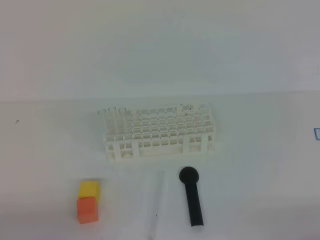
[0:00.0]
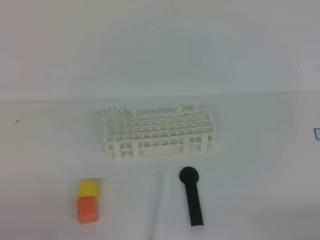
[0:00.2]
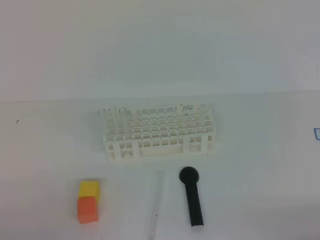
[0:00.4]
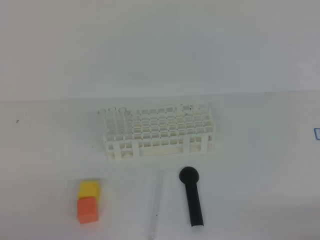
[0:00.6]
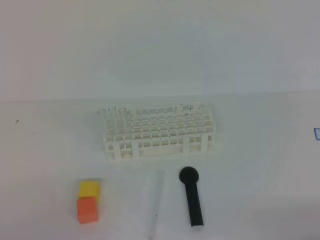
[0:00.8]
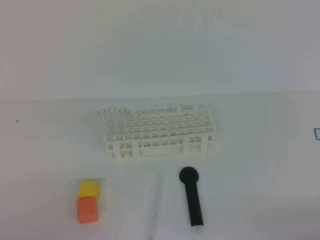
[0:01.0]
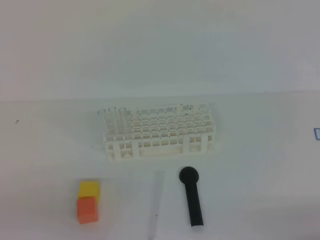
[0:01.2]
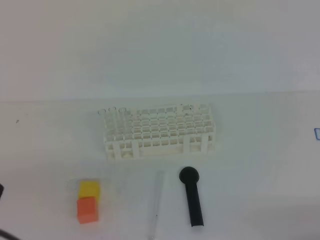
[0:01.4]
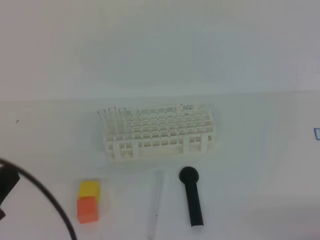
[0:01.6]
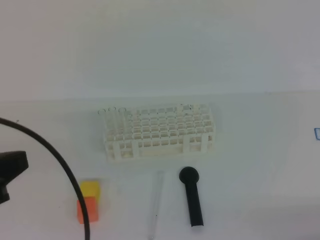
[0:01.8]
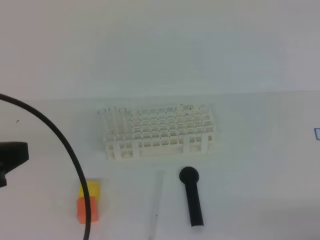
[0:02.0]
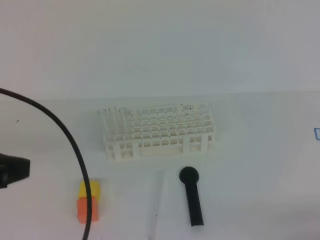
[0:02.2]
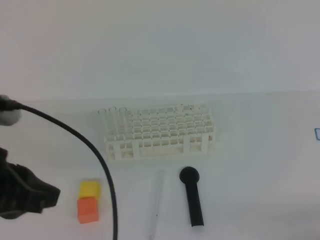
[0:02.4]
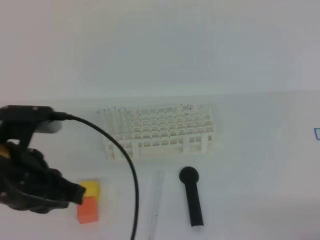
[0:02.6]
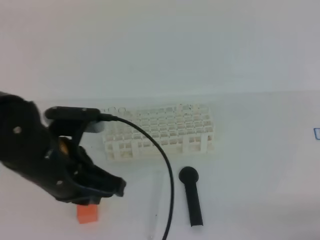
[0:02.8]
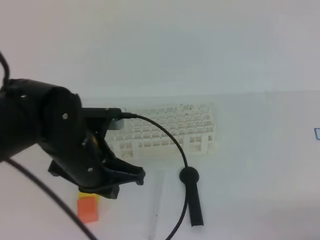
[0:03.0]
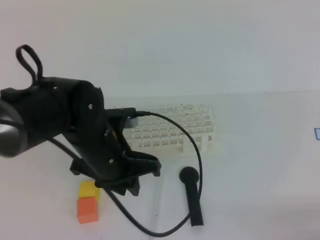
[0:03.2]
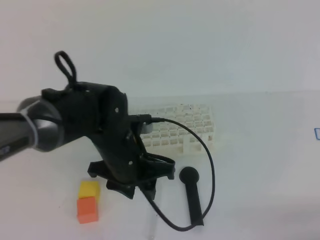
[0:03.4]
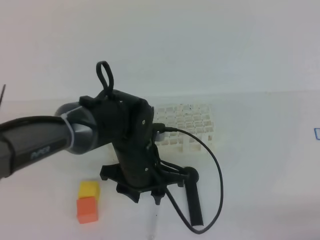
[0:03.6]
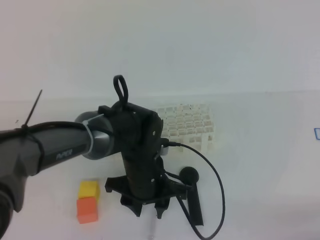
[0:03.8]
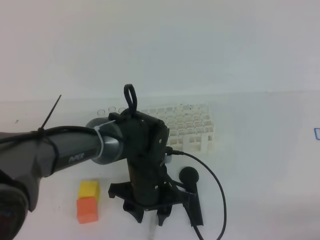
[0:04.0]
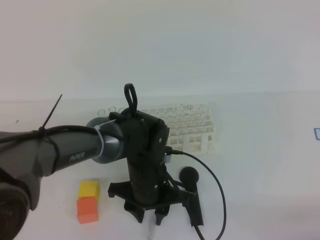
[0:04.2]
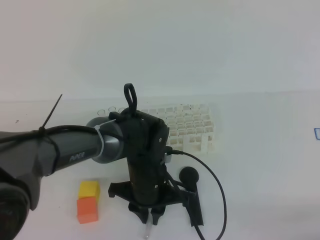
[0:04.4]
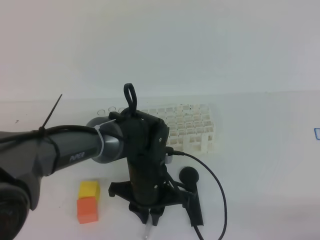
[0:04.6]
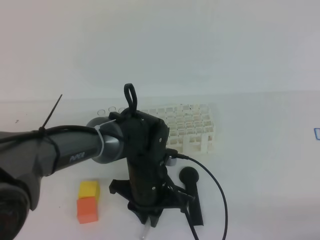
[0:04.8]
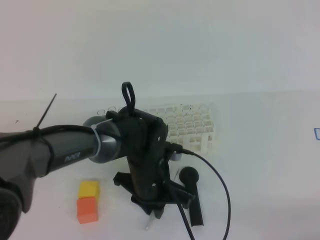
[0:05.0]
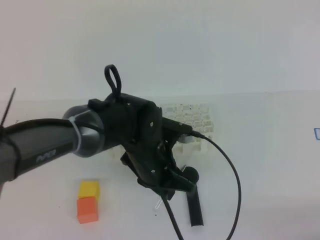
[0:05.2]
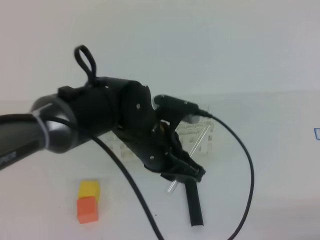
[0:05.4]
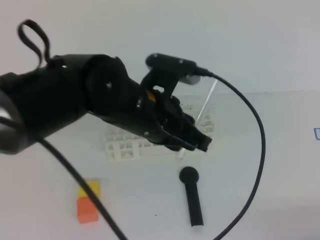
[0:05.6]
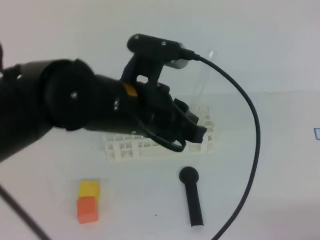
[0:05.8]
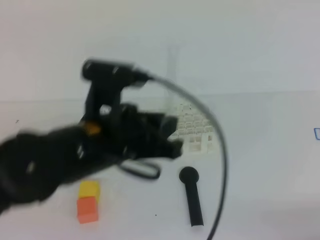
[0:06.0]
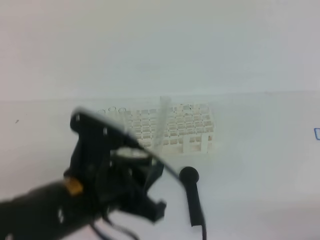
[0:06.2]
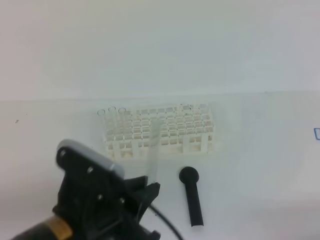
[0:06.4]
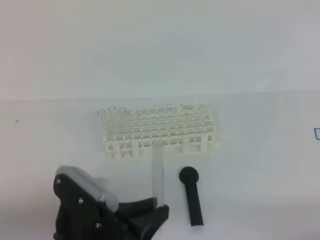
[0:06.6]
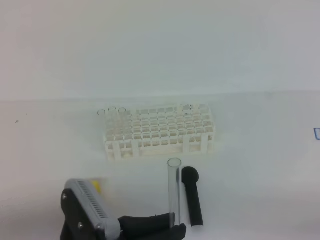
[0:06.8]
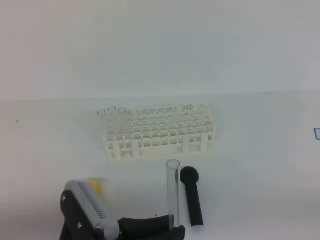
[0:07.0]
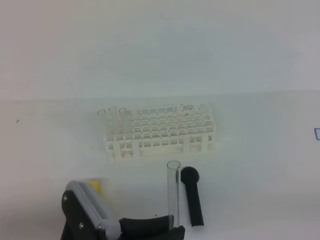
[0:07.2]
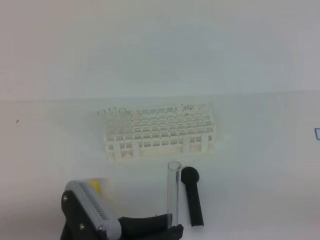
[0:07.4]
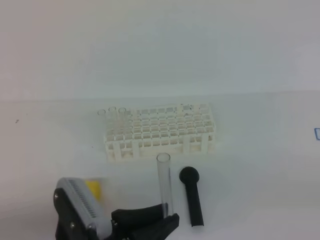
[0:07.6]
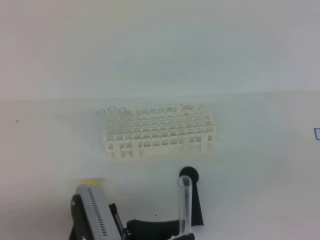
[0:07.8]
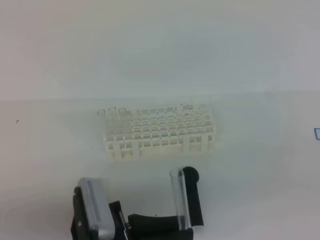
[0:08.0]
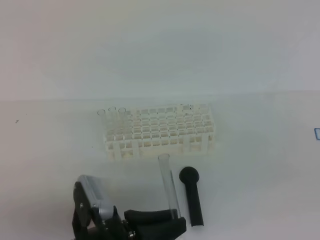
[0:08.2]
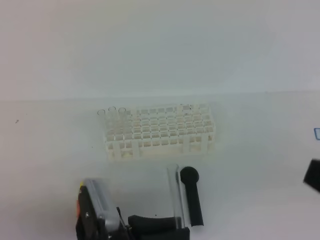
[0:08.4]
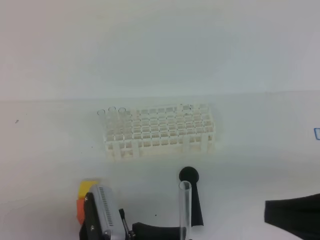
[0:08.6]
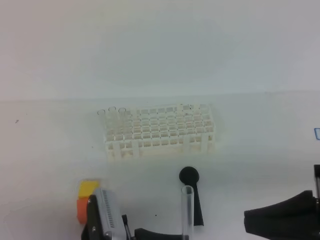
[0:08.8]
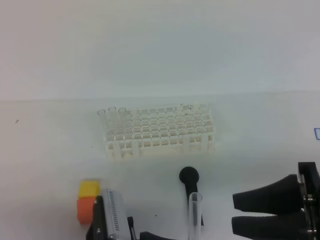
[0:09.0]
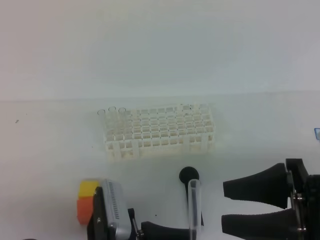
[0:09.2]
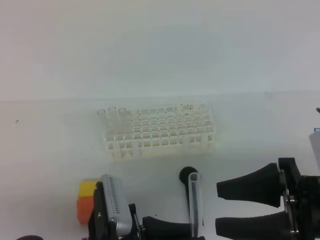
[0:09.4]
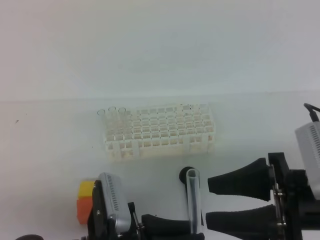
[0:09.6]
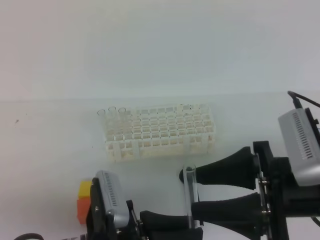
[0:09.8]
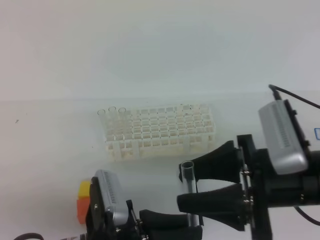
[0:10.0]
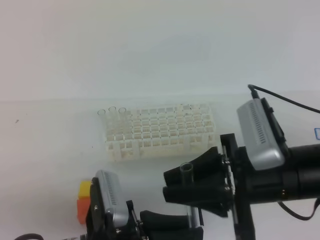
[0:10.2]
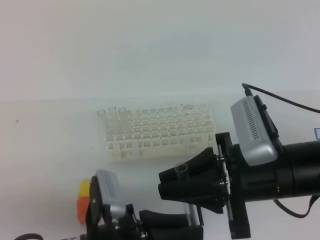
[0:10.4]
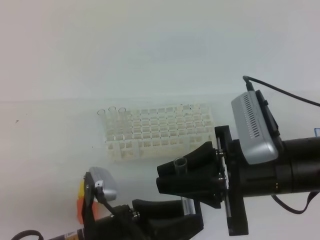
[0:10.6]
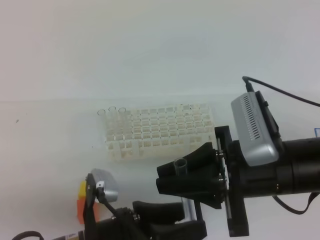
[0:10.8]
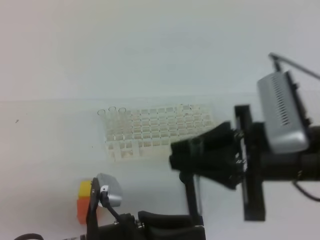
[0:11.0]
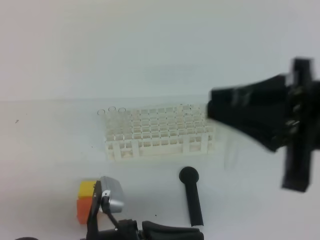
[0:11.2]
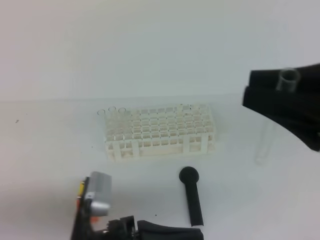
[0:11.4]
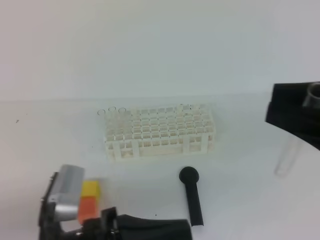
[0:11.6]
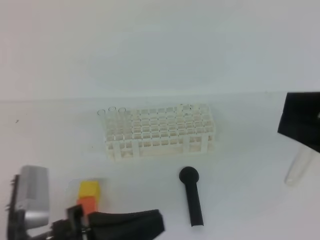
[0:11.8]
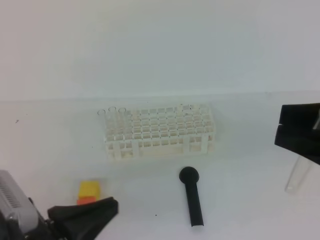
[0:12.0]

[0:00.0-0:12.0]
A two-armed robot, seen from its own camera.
0:00.0 to 0:01.6: The left gripper shifts about 10 cm upward.
0:01.6 to 0:03.0: The left gripper is displaced forward and to the right by about 20 cm.
0:03.0 to 0:04.4: The left gripper is displaced downward and to the right by some 15 cm, and opens, then closes once more.
0:04.4 to 0:06.0: The left gripper heads upward and backward, covering approximately 20 cm.
0:06.0 to 0:07.6: The left gripper travels backward and downward by some 15 cm. Meanwhile the right gripper is displaced upward by about 10 cm.
0:07.6 to 0:09.0: The right gripper travels to the left and forward by approximately 15 cm, and opens up.
0:09.0 to 0:10.4: The right gripper moves to the left and forward, roughly 10 cm, and opens, then closes again.
0:10.4 to 0:12.0: The left gripper goes some 10 cm to the left and upward, and closes its fingers. The right gripper shifts roughly 15 cm upward, to the right and backward.

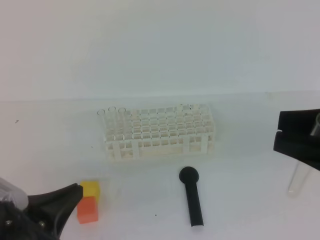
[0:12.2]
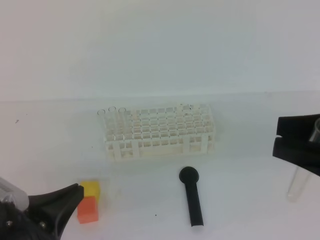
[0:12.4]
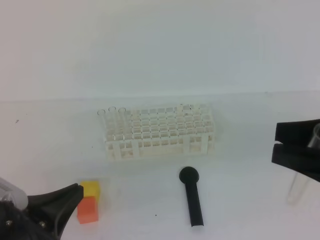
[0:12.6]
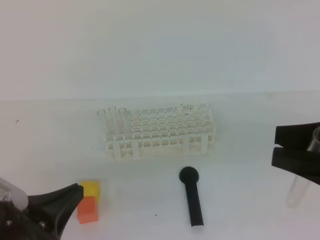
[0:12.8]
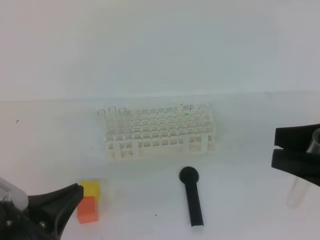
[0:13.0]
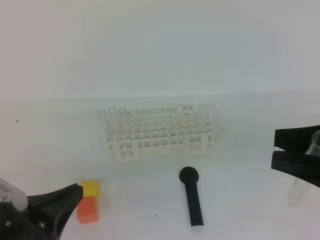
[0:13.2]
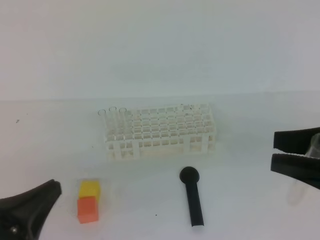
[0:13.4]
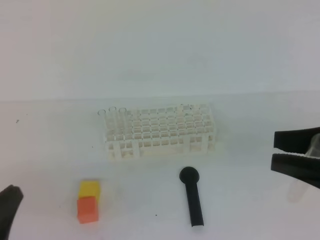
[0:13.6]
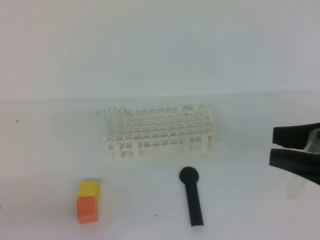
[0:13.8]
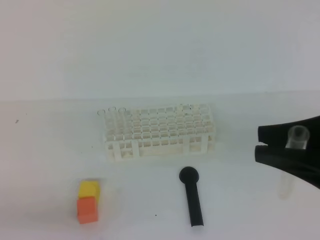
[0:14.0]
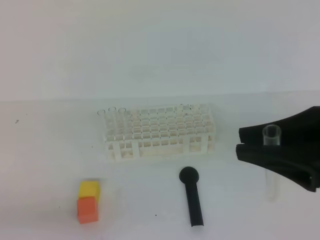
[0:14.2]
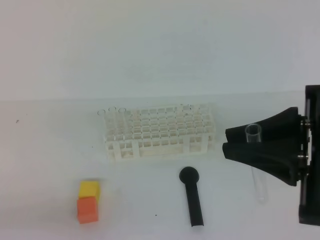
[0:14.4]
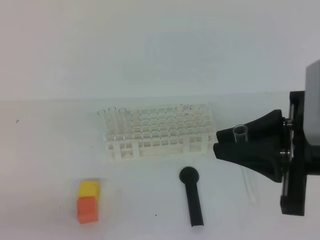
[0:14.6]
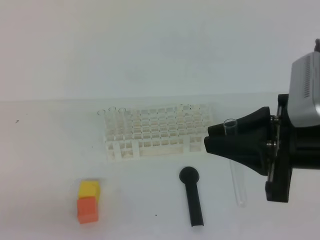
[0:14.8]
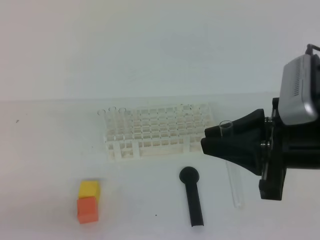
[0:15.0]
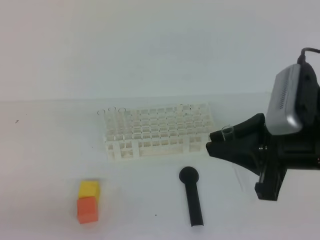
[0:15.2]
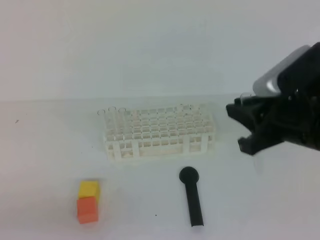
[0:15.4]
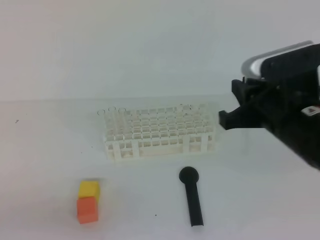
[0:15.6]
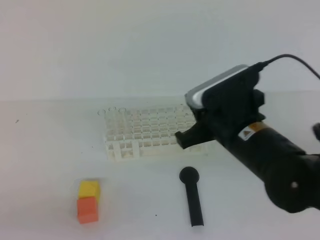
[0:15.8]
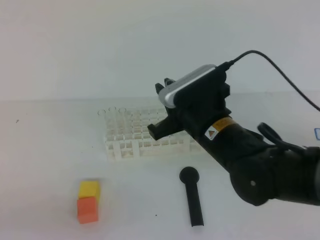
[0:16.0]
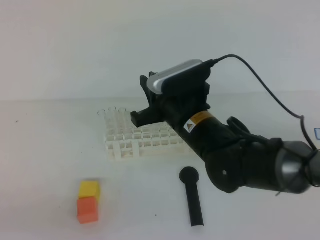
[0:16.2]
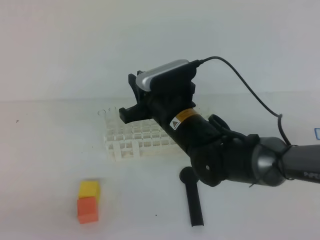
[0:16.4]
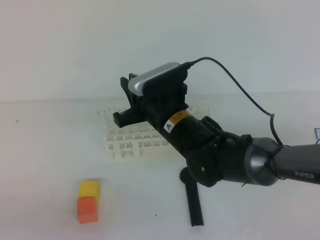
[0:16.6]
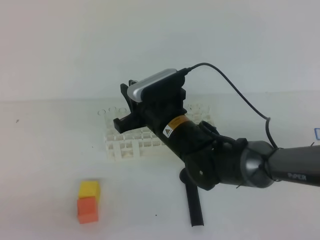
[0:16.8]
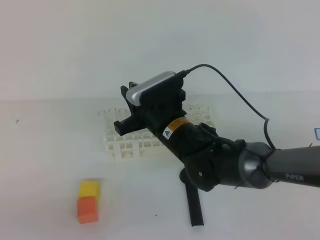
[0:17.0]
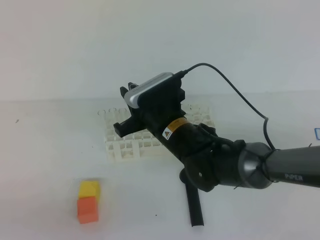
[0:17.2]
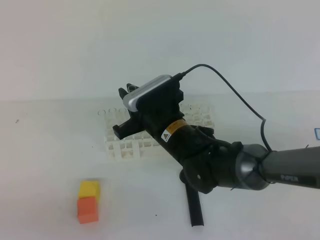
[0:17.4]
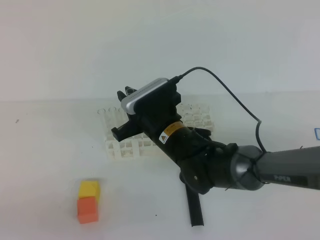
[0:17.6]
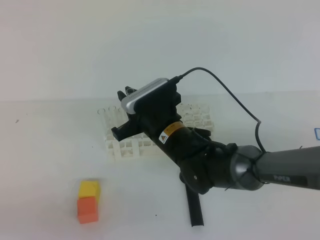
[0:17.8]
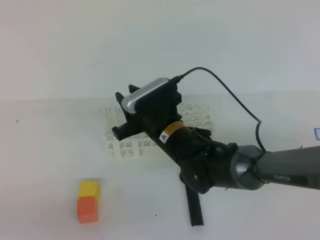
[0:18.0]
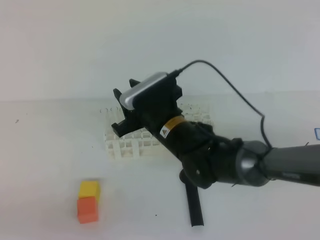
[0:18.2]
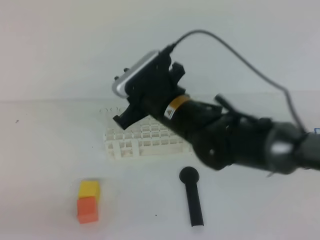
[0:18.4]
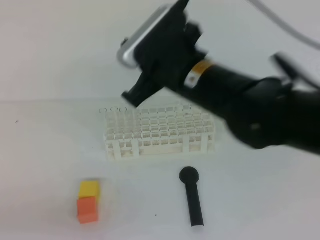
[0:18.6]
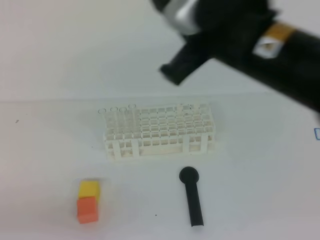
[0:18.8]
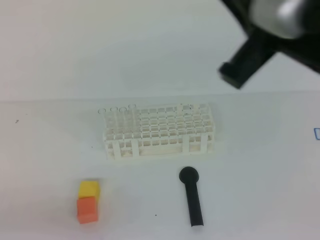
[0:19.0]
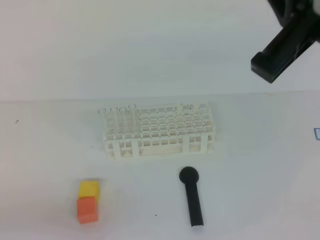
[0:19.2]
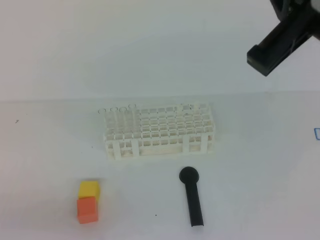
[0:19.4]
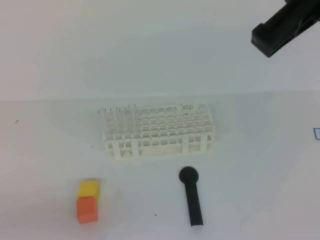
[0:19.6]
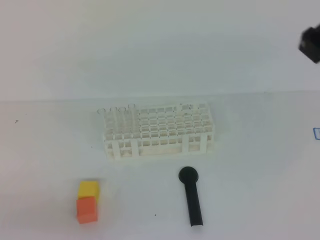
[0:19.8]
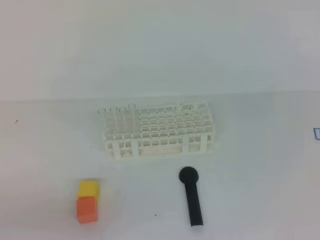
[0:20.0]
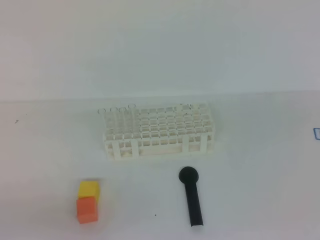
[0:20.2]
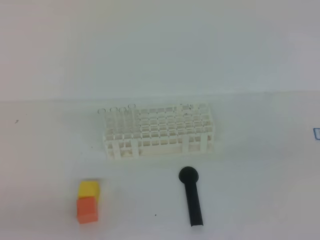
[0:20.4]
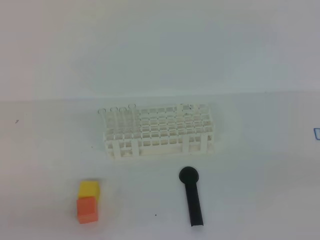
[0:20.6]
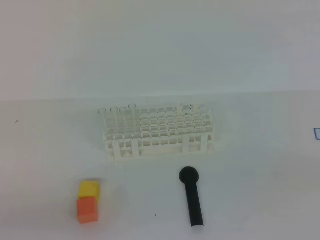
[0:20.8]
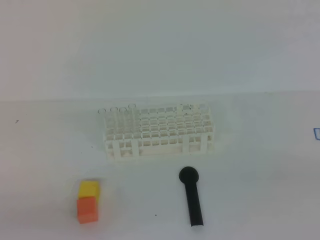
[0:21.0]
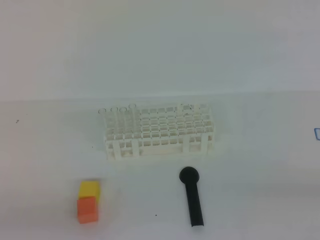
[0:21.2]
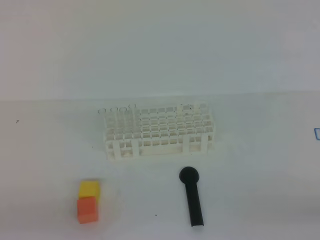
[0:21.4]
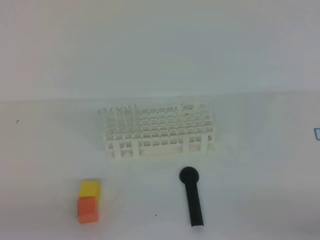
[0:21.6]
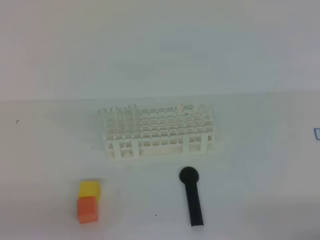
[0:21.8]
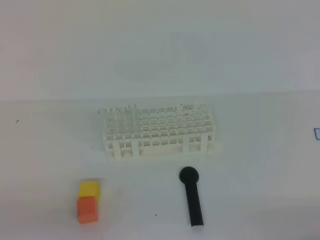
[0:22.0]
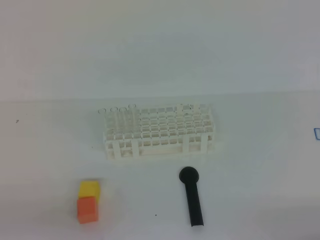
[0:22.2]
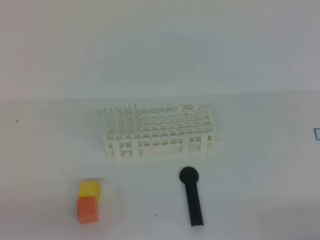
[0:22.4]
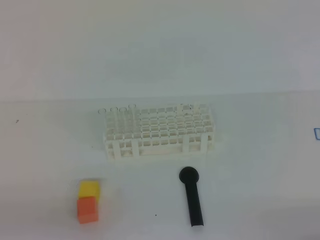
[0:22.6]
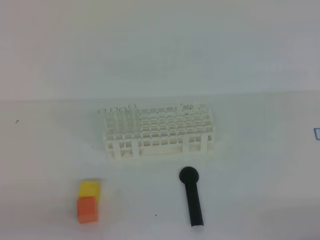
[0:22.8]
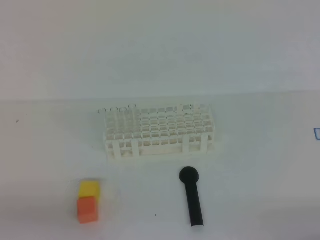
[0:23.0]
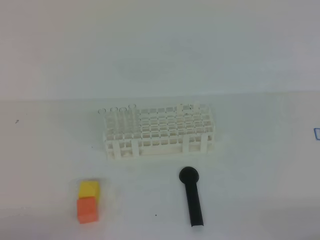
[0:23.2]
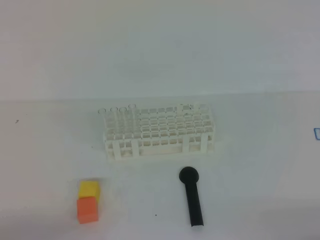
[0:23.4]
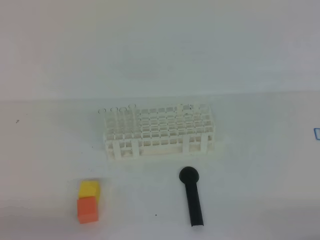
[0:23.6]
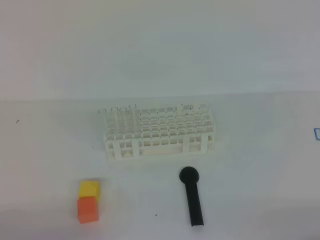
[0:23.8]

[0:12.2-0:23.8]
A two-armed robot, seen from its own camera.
0:12.2 to 0:13.6: The left gripper heads to the left, covering about 5 cm.
0:13.6 to 0:15.0: The right gripper heads forward and downward, covering roughly 10 cm.
0:15.0 to 0:16.6: The right gripper shifts some 25 cm to the left, forward and downward.
0:16.6 to 0:18.0: The grippers make only small movements.
0:18.0 to 0:19.4: The right gripper goes approximately 35 cm upward, backward and to the right, and closes up.
0:19.4 to 0:21.0: The right gripper is displaced to the right, downward and backward by approximately 25 cm.
